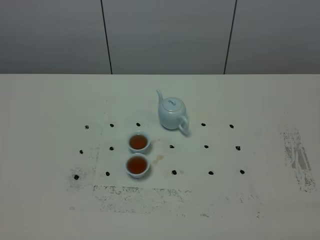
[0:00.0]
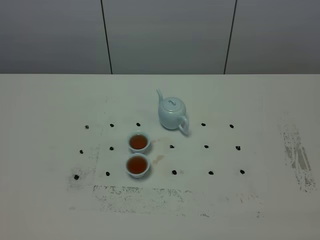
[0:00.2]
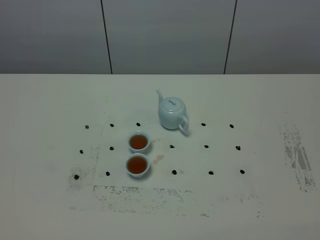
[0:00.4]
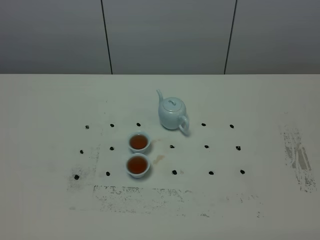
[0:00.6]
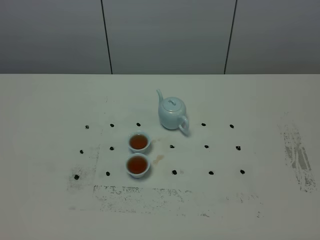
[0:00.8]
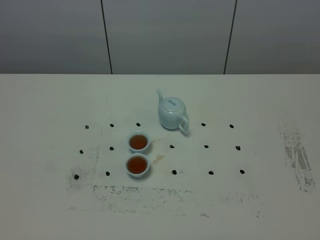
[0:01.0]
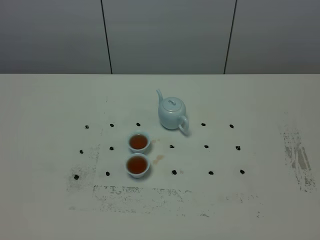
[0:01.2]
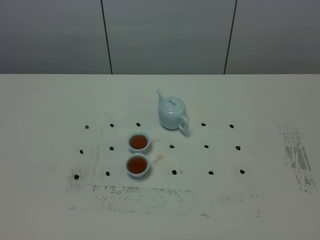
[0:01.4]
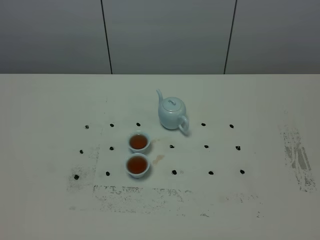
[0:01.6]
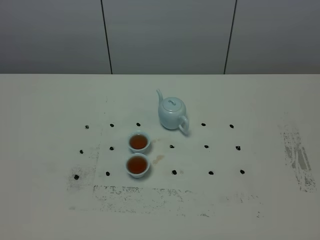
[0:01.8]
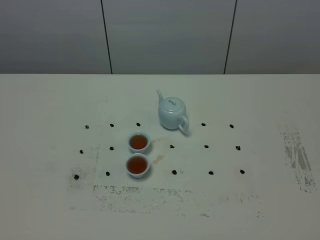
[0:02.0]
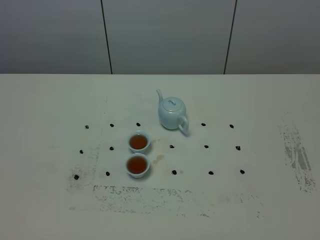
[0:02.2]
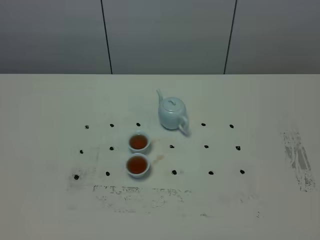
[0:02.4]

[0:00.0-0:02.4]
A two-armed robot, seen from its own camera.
Task of the whole recording: grasp the blue porcelain teapot and pour the tea into the two blue porcelain teacups one by one, put the blue porcelain teapot back in its original place.
0:01.2 to 0:02.4: Both grippers stay put.
